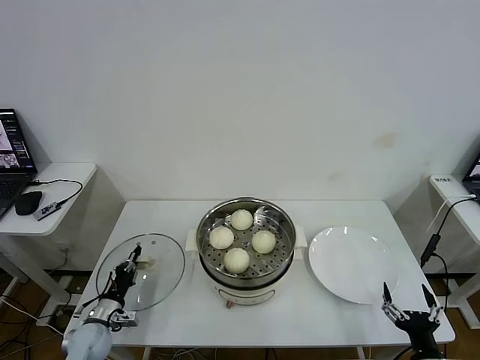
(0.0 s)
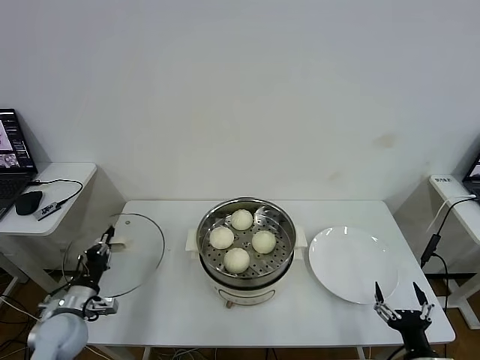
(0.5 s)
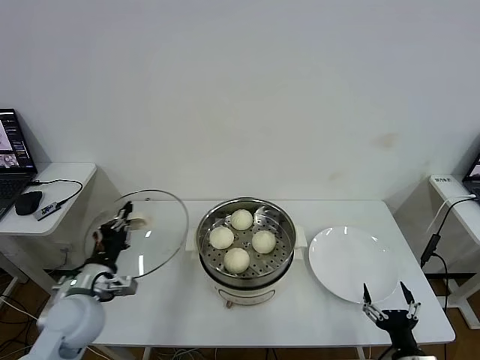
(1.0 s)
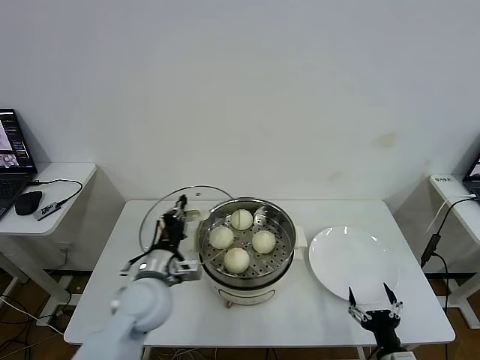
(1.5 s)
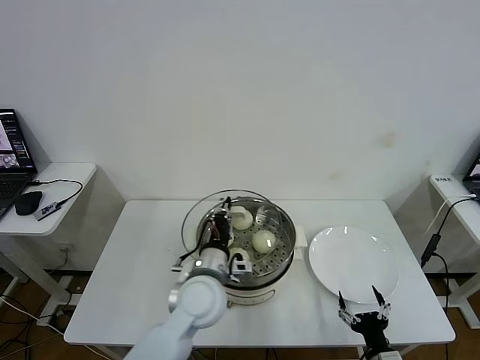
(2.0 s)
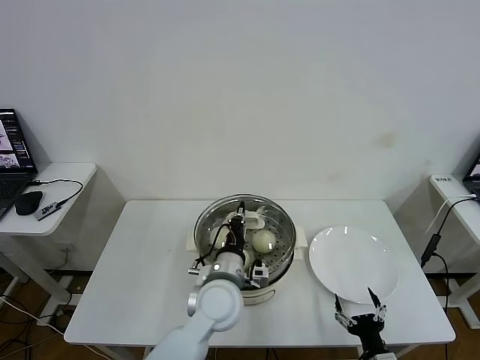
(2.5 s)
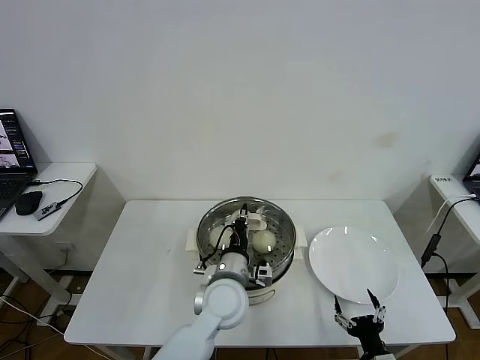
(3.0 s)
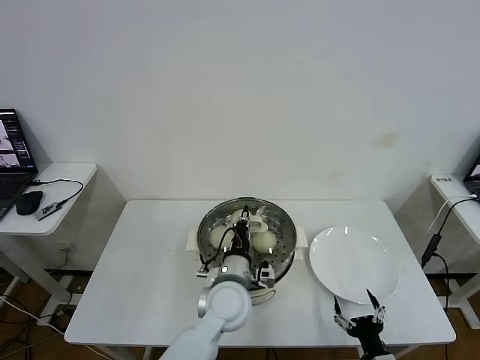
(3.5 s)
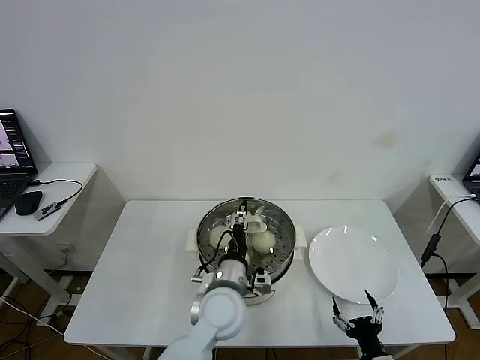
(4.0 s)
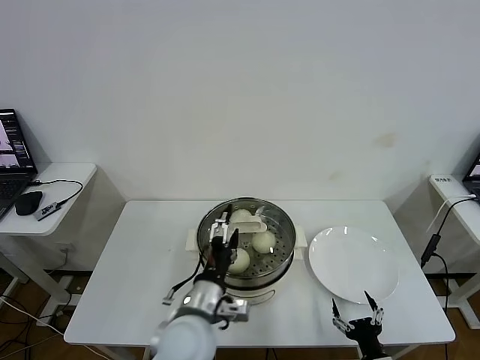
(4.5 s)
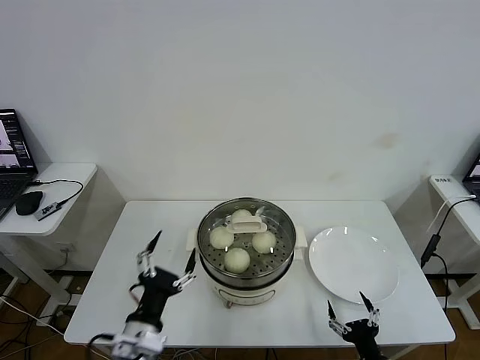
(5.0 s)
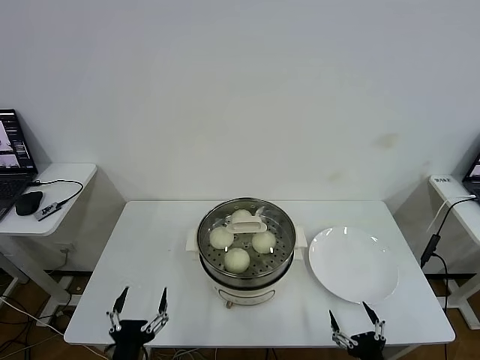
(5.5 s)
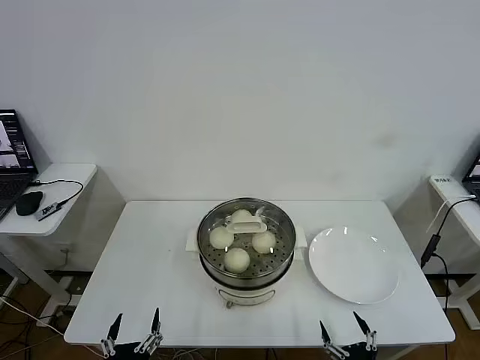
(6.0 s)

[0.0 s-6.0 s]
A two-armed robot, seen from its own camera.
Task of the whole recording: take steamed baozi put them in steamer then cover it.
Step, 0.0 to 3.5 s: Place the pot lid on the steamer with left gripper.
0.0 to 2.0 s: The left gripper goes some 35 cm to the right and upward, while the right gripper shifts approximately 5 cm to the left and downward.
2.0 to 4.0 s: The left gripper heads to the right, covering about 5 cm, and opens up.
4.0 to 6.0 s: The left gripper shifts about 30 cm backward and to the left, and opens its fingers. The right gripper shifts some 5 cm backward.
